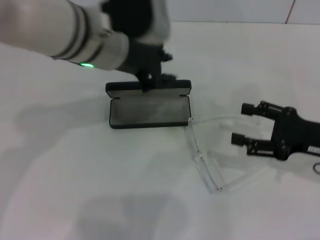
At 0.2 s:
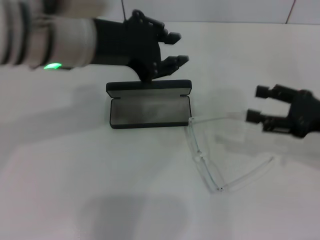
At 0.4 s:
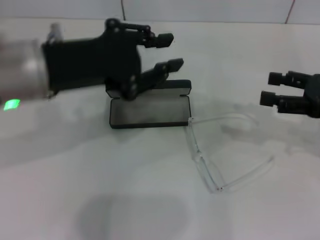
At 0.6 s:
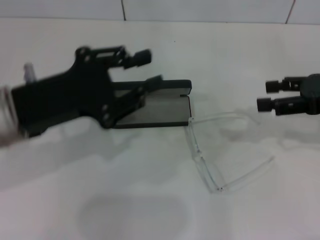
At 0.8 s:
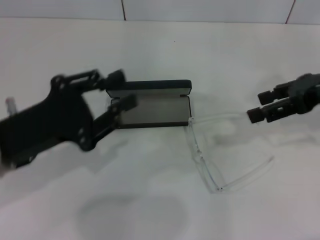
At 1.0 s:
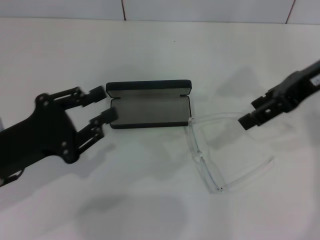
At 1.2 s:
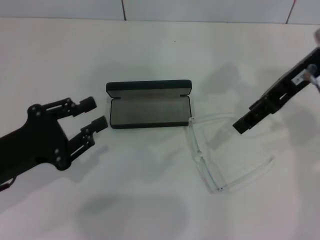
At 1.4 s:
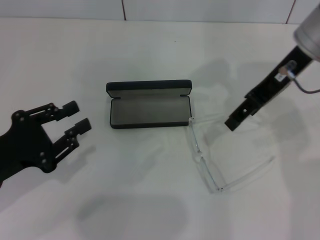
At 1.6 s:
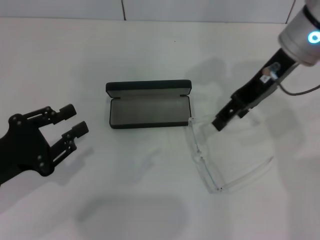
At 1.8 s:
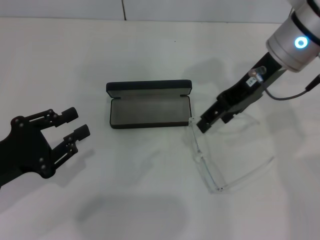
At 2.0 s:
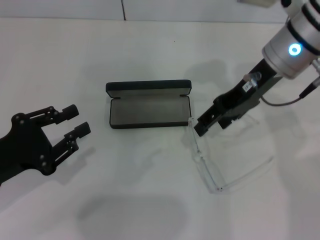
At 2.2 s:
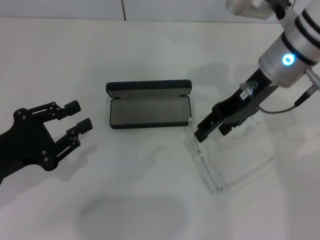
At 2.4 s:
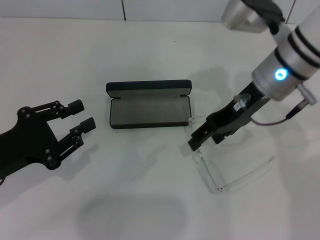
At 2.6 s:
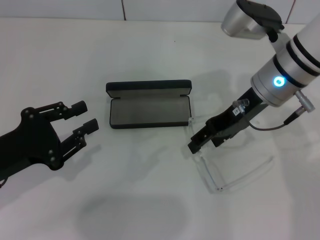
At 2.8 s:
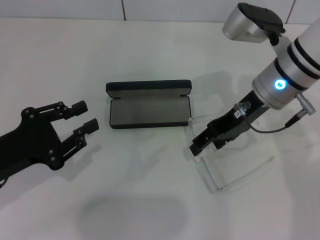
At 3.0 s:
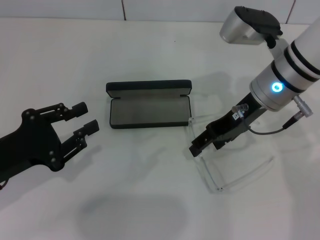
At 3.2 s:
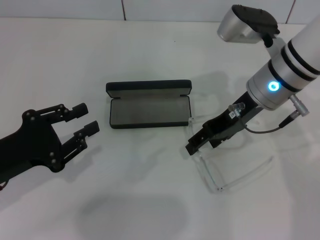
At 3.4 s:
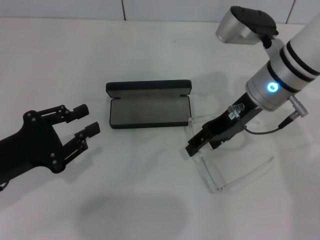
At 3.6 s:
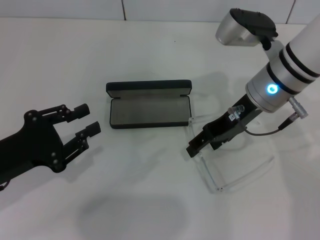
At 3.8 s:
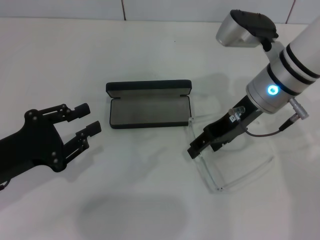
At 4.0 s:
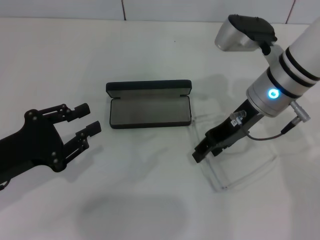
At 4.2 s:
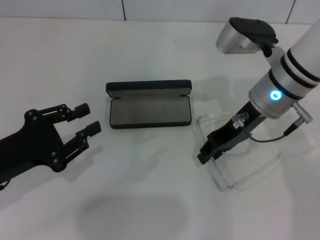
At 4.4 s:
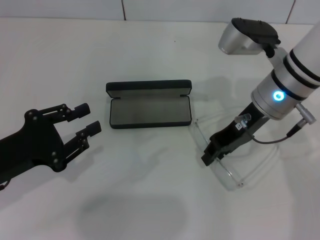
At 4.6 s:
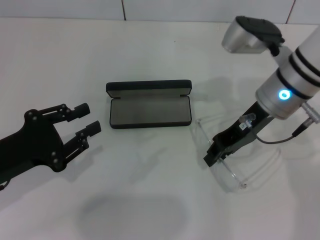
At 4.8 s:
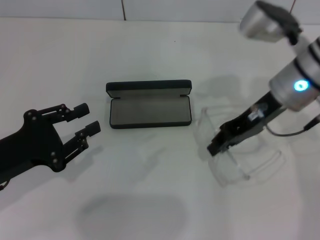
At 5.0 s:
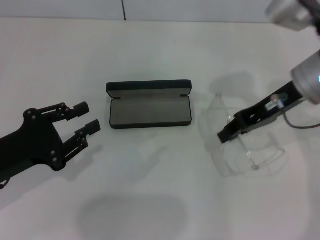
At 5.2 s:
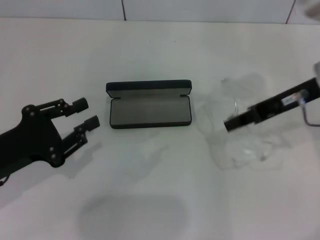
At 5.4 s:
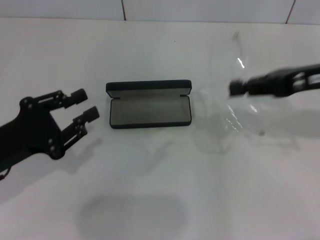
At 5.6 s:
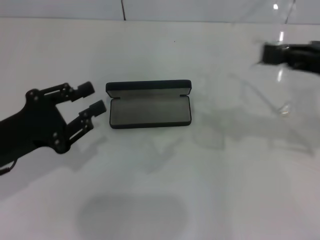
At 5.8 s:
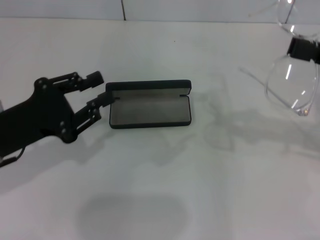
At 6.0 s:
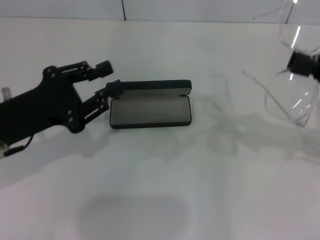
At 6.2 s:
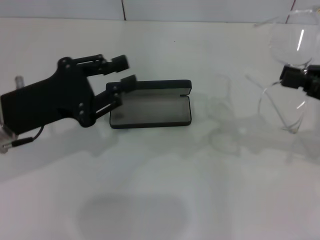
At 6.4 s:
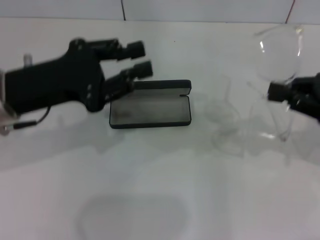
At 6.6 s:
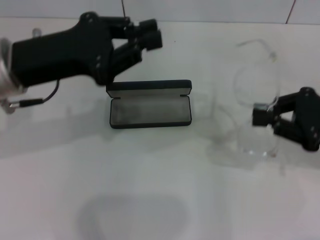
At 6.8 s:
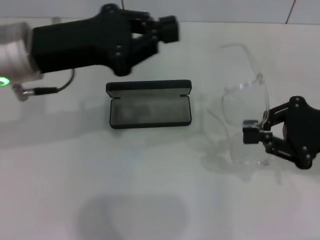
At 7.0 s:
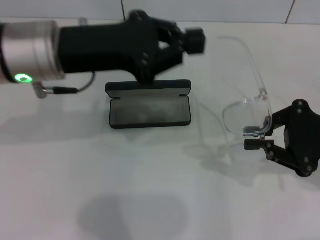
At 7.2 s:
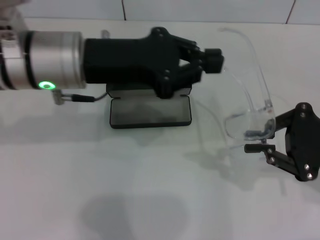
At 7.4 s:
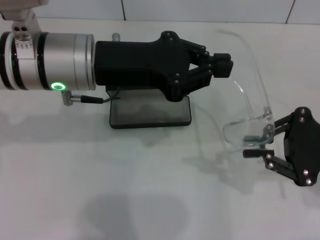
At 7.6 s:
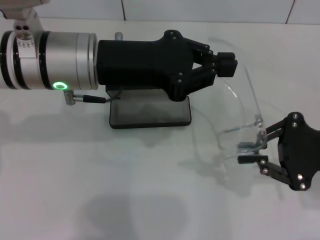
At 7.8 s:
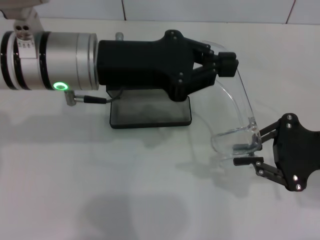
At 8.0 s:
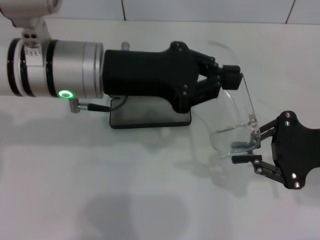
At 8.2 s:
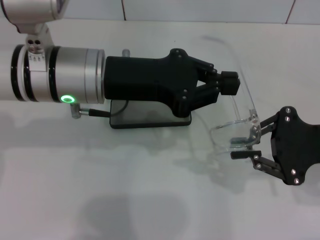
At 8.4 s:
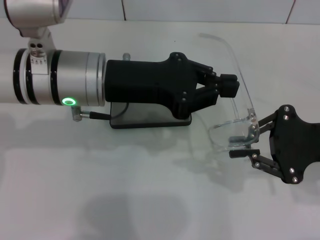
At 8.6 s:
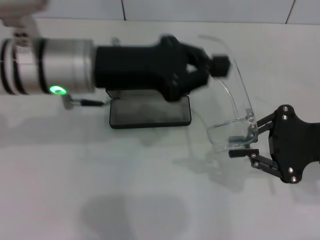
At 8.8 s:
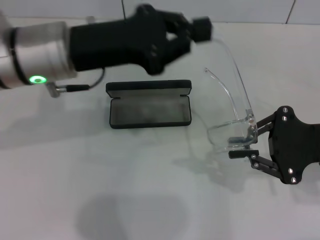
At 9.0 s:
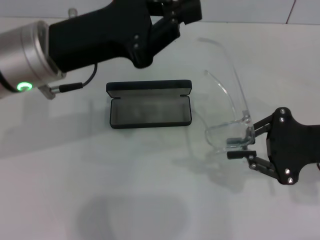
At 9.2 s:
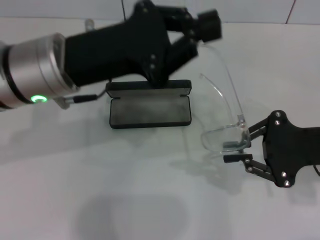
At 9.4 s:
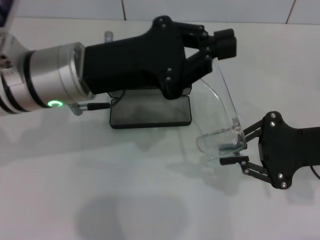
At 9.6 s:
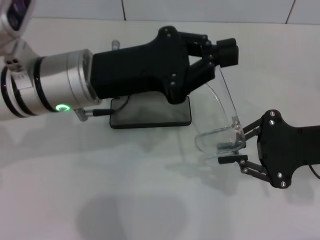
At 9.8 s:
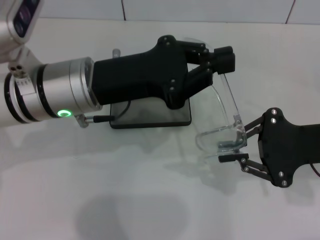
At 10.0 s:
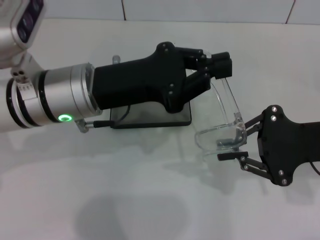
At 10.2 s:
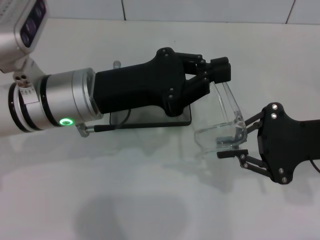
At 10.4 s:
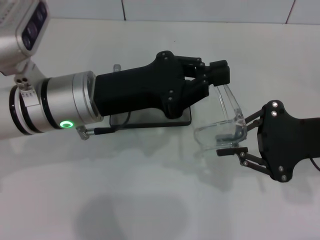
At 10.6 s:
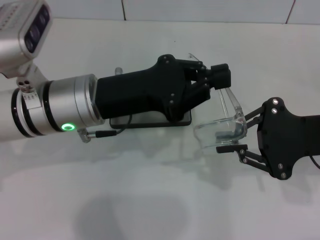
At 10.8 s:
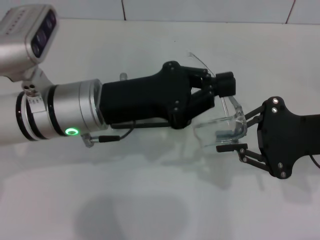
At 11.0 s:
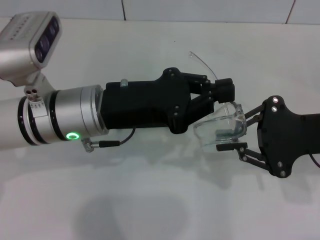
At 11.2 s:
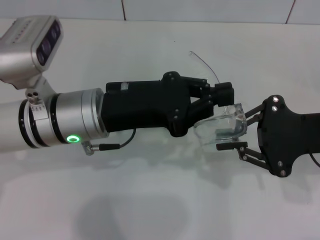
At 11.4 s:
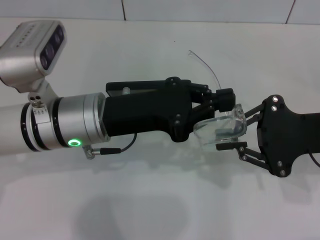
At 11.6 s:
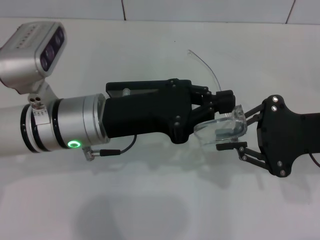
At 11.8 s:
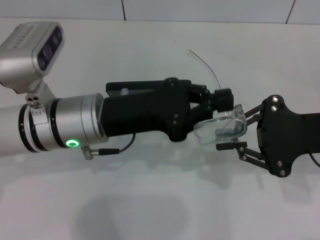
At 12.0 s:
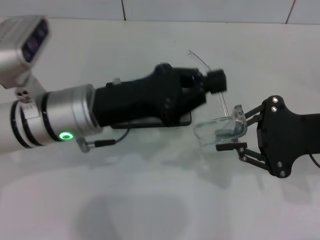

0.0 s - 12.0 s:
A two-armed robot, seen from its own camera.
Step, 0.0 s - 4.4 s: Grab the eyeglass frame with your right hand.
0.0 s - 1.6 s: The left gripper goes roughly 25 cm to the left, backward and downward, while the right gripper travels upward, to the left and forward by about 20 cm.
1.6 s - 3.0 s: The right gripper goes some 10 cm downward.
3.0 s - 4.4 s: The right gripper closes.
4.4 s - 6.0 s: The left gripper shifts by roughly 5 cm; the right gripper shifts approximately 20 cm to the right and backward, and closes.
6.0 s - 7.6 s: The right gripper changes place by approximately 5 cm; the left gripper moves to the right, upward and forward, about 15 cm.
9.0 s - 10.4 s: The left gripper heads downward, covering approximately 5 cm.
10.4 s - 12.0 s: The grippers make only small movements.

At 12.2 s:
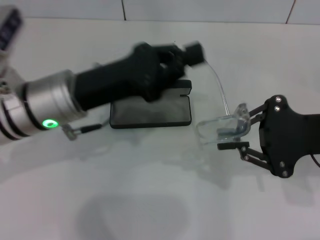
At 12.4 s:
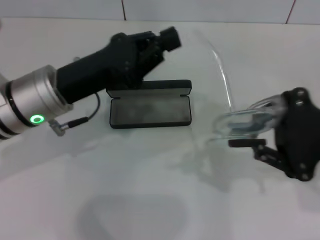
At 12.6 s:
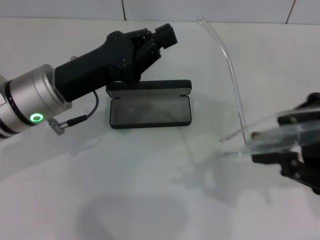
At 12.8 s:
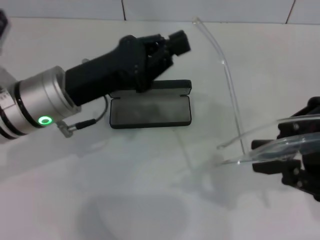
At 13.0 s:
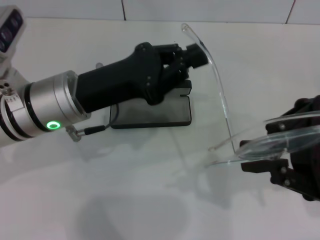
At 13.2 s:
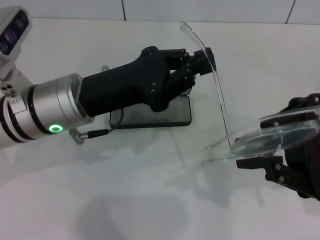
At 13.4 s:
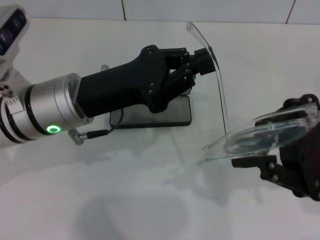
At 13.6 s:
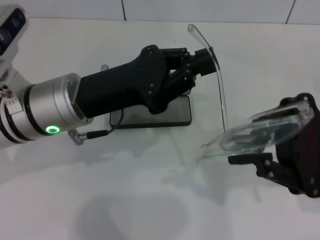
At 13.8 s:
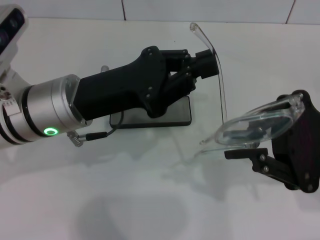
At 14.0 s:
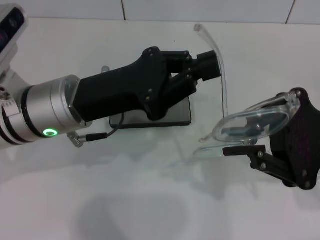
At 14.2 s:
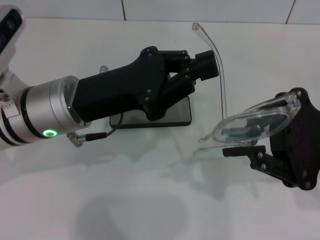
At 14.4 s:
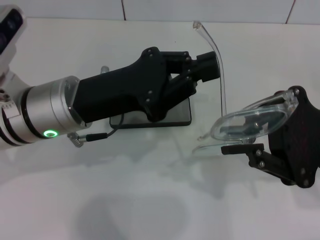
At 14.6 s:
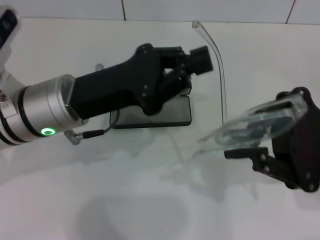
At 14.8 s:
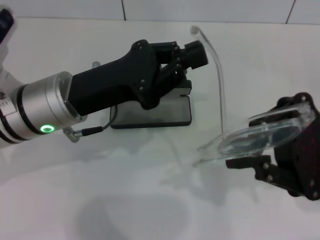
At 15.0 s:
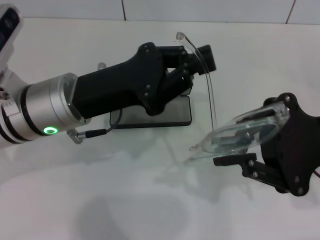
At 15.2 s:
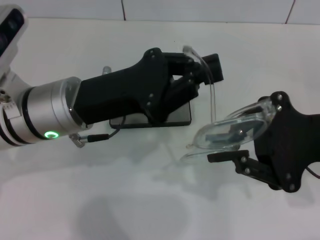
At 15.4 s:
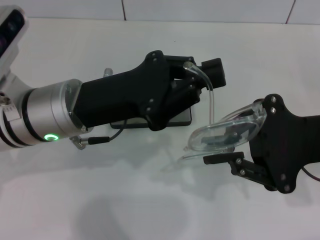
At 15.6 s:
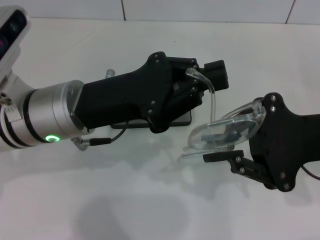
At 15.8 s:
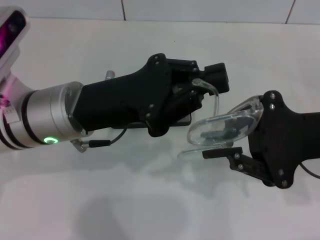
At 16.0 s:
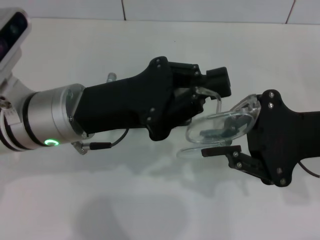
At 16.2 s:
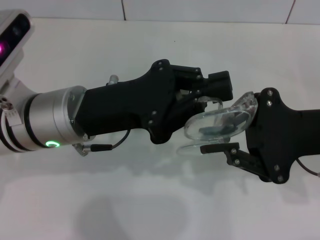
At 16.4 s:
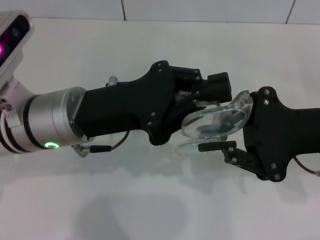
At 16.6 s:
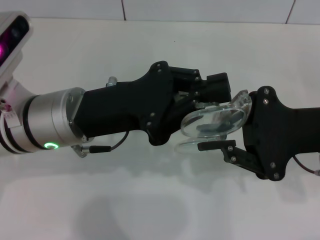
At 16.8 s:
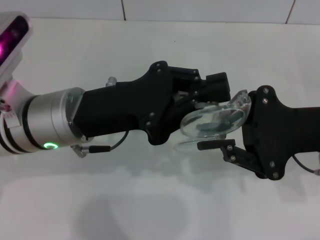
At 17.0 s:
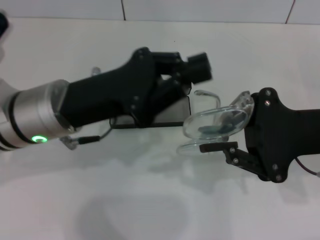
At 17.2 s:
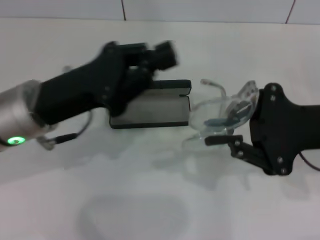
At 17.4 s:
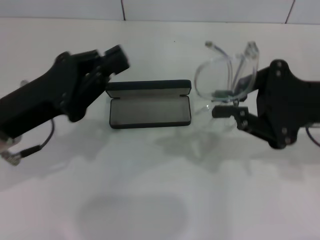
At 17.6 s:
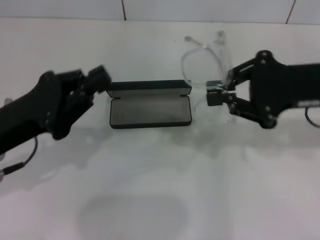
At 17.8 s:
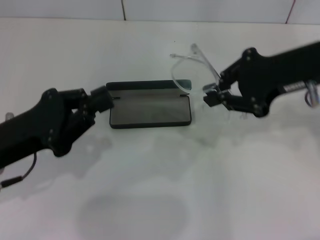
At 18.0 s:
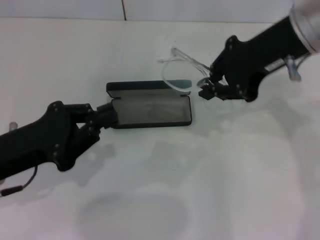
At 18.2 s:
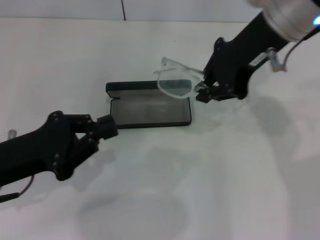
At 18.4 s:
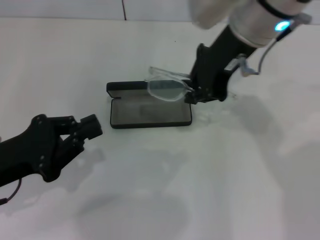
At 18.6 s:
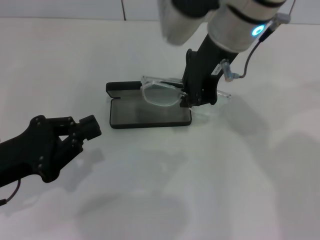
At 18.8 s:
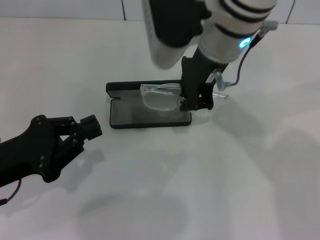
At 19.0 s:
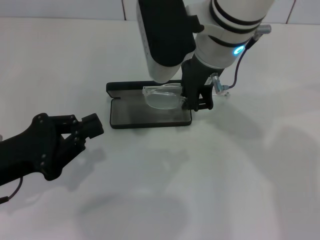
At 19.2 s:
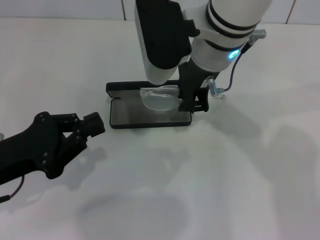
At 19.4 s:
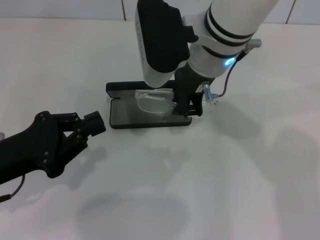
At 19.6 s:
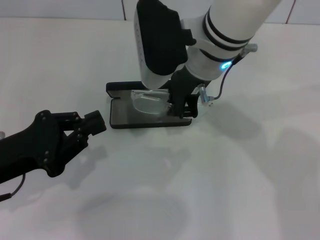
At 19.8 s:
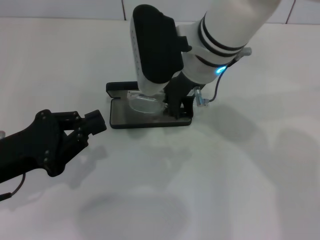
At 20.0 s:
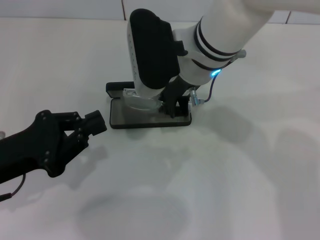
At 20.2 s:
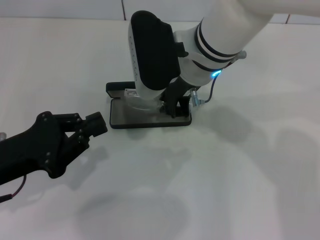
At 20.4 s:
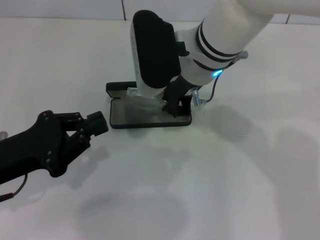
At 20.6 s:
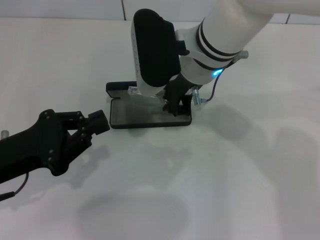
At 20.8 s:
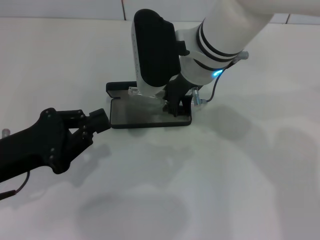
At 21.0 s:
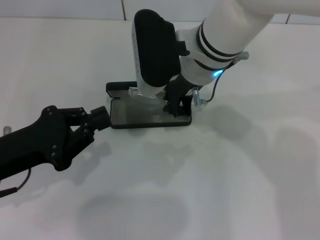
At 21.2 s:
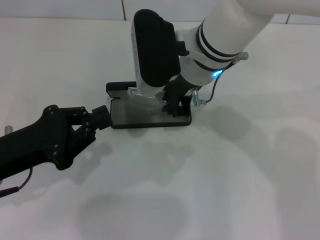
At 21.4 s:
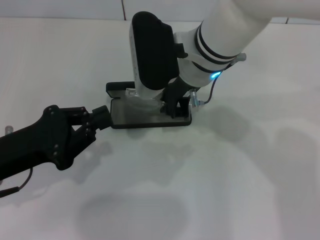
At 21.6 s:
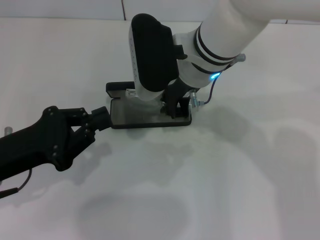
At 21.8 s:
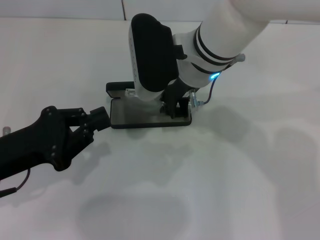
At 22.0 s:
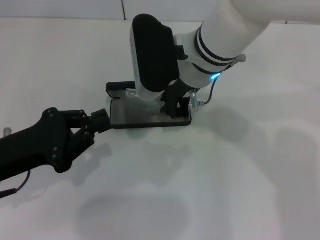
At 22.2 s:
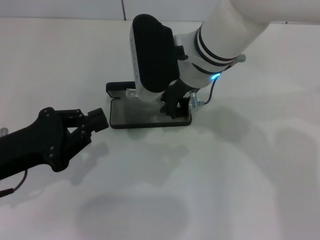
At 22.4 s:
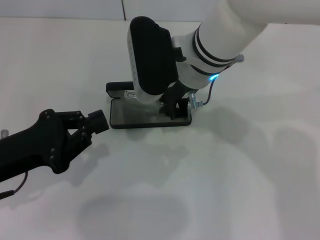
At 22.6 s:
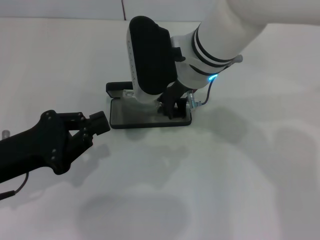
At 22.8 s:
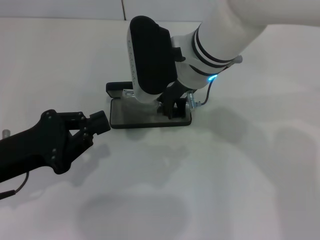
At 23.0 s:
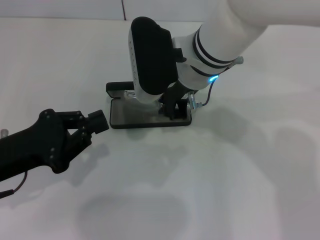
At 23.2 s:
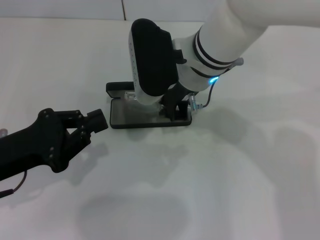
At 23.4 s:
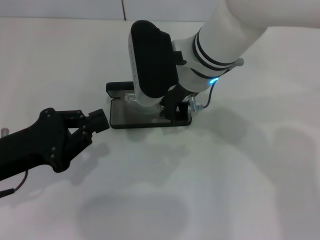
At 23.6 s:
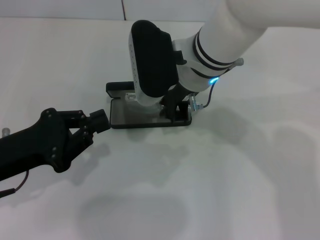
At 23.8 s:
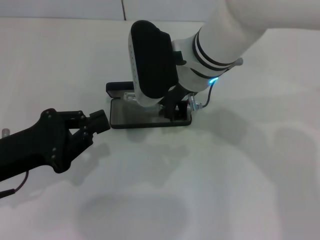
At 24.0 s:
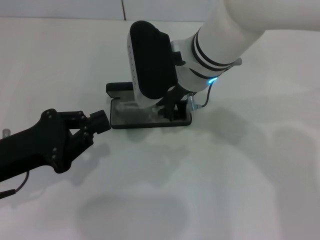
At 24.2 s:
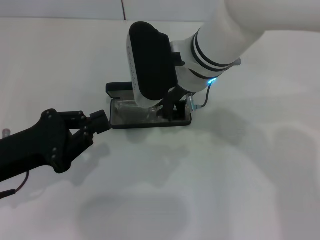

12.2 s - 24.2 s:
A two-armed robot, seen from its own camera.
Step, 12.2 s - 16.8 s: Fold the frame with your left hand.
13.8 s - 15.2 s: The grippers stay close to where they were, moving slightly.
16.6 s - 18.2 s: The right gripper heads upward, to the left and forward, covering roughly 20 cm. The left gripper shifts some 15 cm to the left and backward.
18.2 s - 19.8 s: The right gripper travels to the left and downward by some 10 cm.
19.8 s - 21.2 s: Neither gripper changes place.
21.2 s - 24.2 s: Both grippers stay about where they are.
